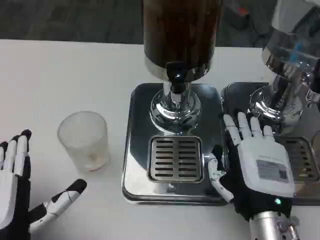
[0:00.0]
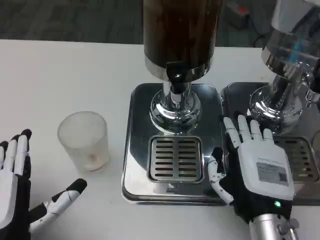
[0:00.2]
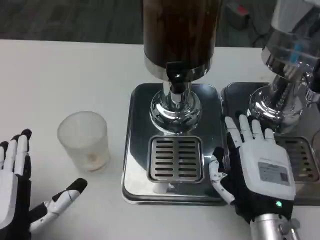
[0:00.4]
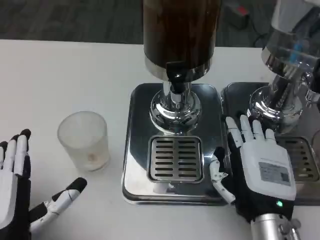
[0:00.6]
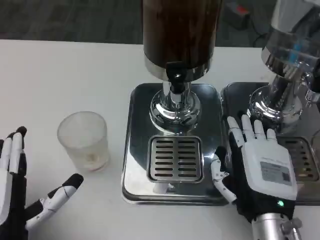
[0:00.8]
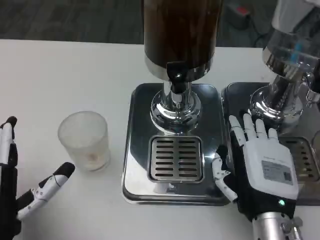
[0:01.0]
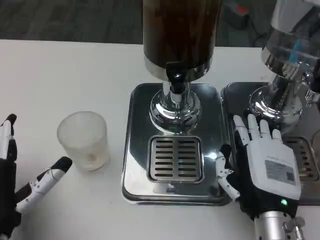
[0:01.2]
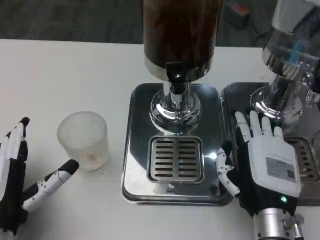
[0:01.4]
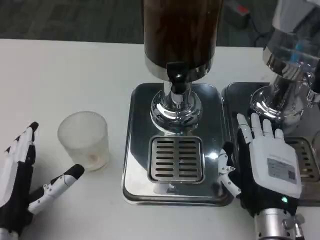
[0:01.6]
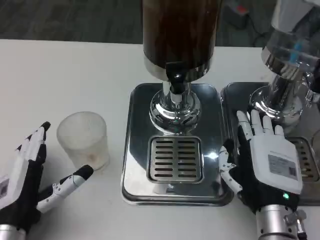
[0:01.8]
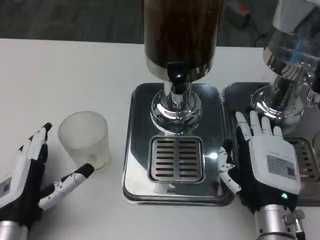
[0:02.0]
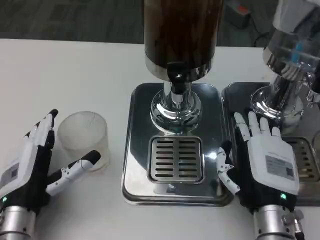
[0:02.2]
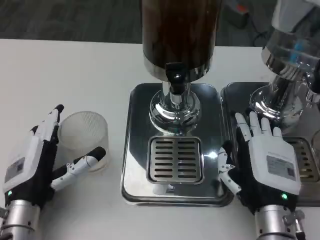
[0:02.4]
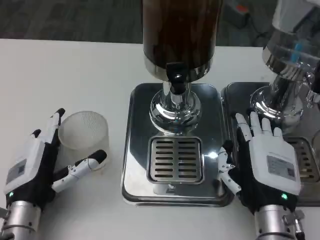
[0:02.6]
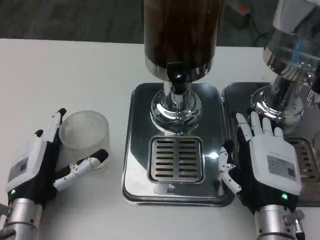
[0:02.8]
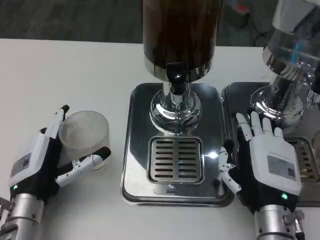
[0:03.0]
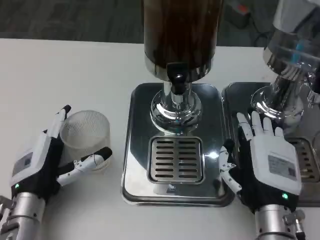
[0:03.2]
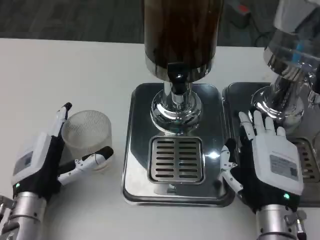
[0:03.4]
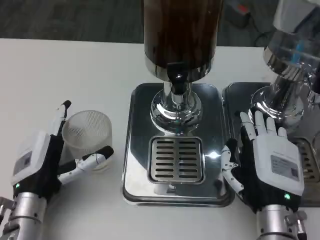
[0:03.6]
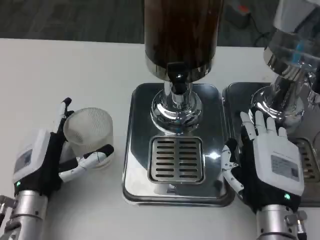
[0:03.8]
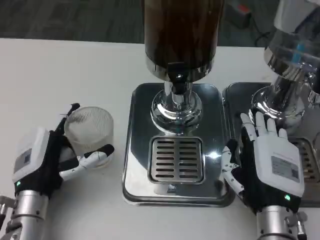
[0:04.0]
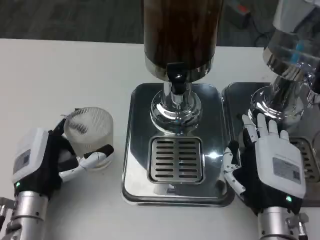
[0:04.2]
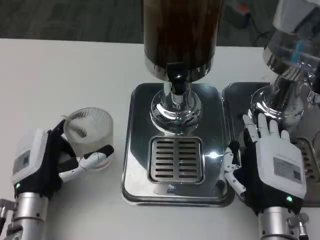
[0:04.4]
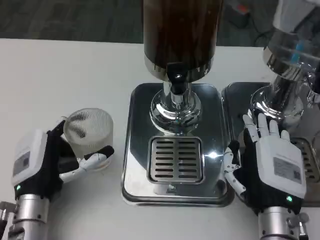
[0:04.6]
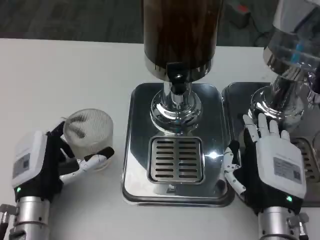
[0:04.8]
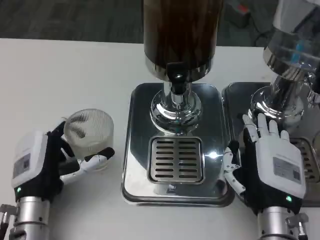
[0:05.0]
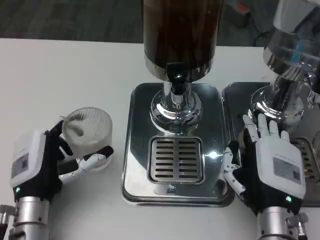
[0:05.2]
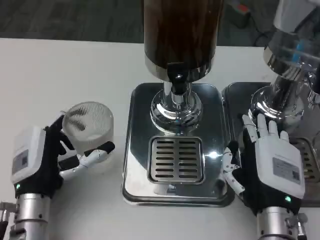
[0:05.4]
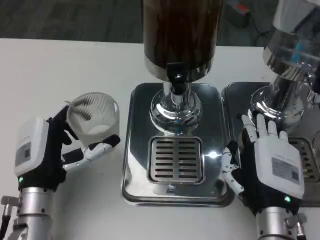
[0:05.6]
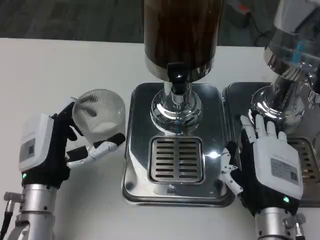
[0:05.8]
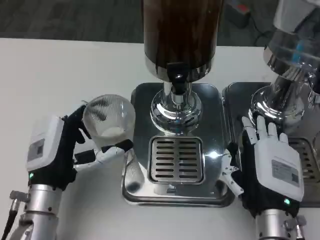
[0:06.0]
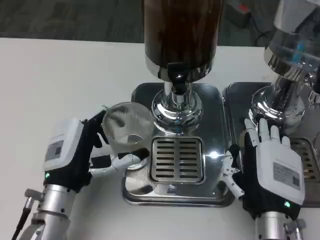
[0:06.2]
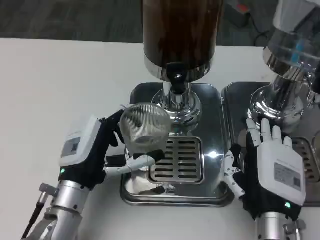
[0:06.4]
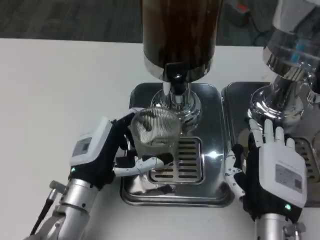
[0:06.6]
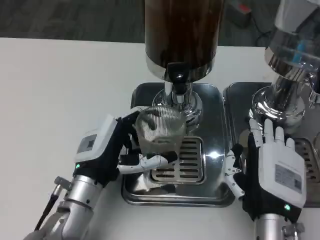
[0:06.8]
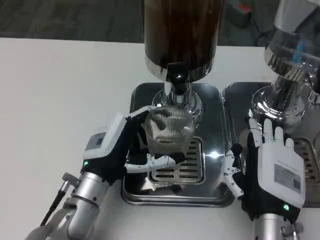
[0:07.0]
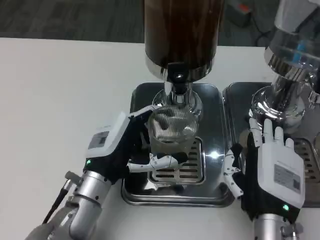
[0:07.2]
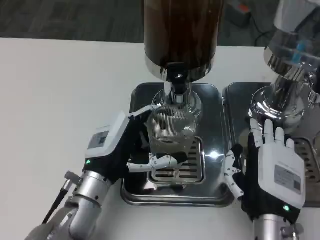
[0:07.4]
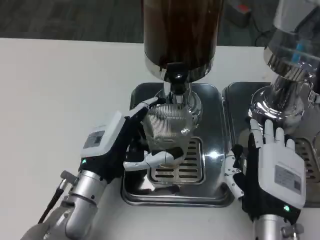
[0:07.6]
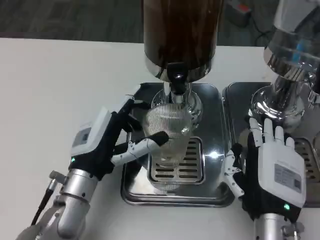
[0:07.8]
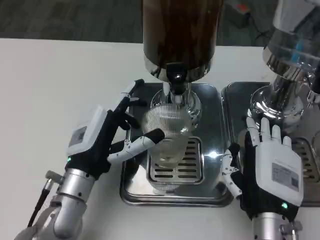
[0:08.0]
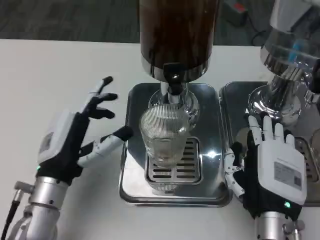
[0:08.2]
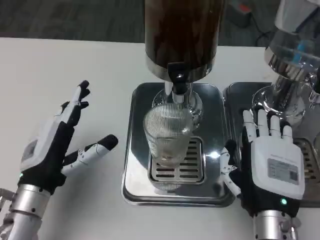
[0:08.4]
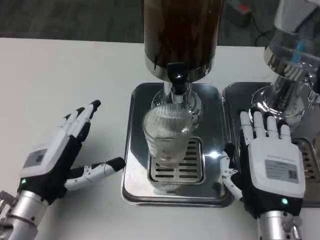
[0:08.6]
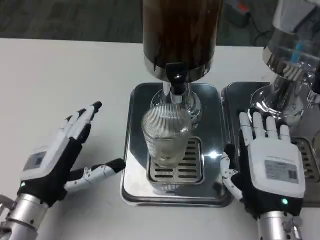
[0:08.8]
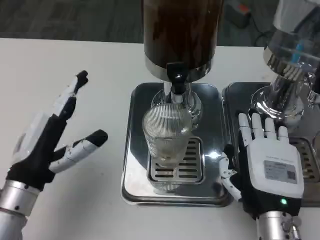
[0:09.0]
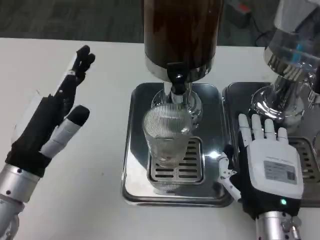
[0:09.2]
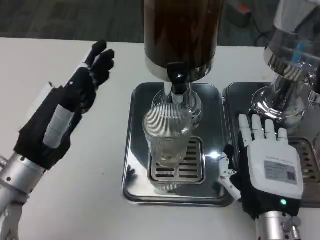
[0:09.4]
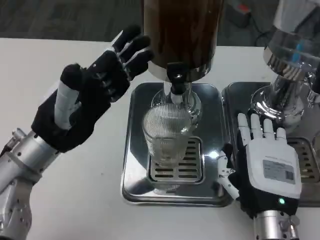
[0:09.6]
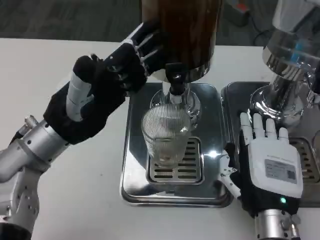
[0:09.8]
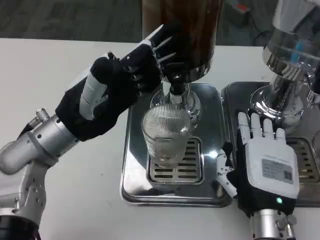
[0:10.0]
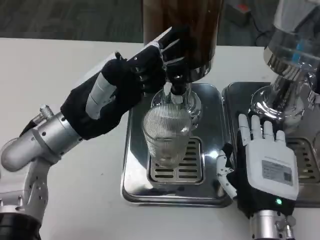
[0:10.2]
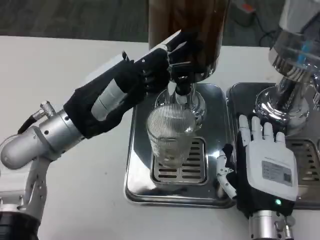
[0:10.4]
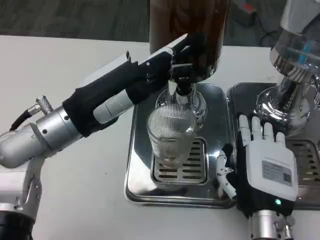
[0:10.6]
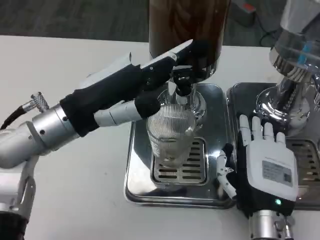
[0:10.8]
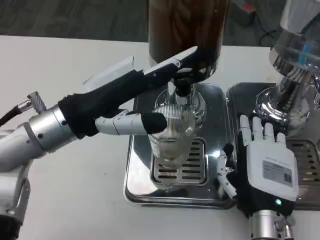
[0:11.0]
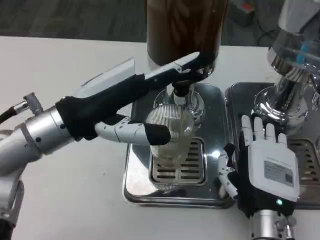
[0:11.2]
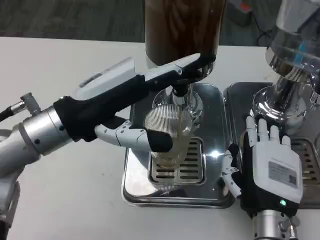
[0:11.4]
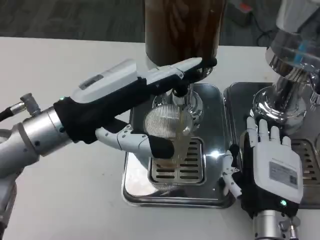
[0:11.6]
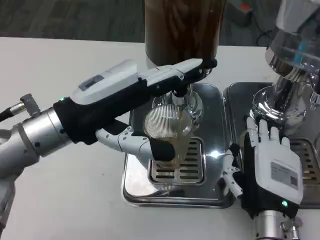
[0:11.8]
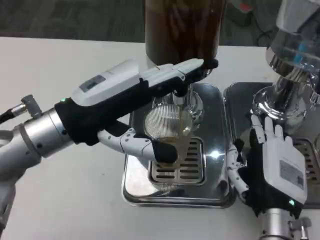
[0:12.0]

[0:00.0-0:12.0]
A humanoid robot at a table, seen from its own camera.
Task of the whole recording: Grasp the cup under the faucet to collect the drink, then remove the cup.
0.0 to 1.6 s: The left hand shifts by some 5 cm.
1.6 to 3.0 s: The left hand travels forward by approximately 5 cm.
3.0 to 4.4 s: The hands move only a little.
4.4 to 6.0 s: The hands move only a little.
6.0 to 7.6 s: The left hand moves about 5 cm.
7.6 to 9.0 s: The left hand goes roughly 10 cm to the left.
9.0 to 10.4 s: The left hand travels upward and forward by approximately 10 cm.

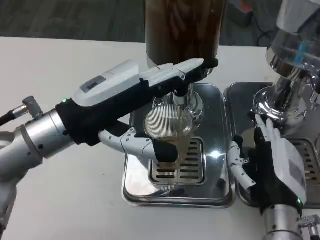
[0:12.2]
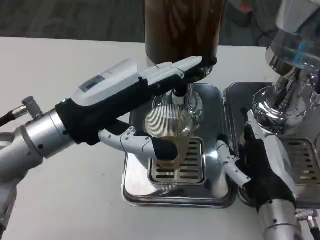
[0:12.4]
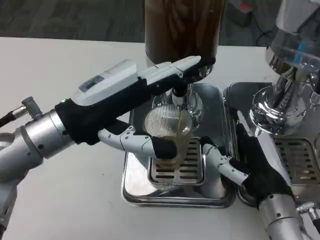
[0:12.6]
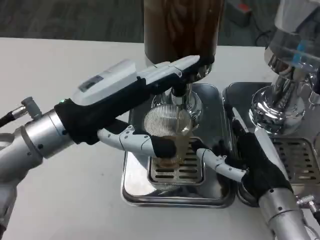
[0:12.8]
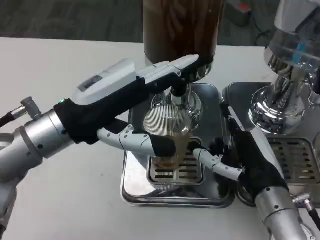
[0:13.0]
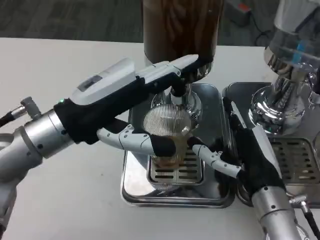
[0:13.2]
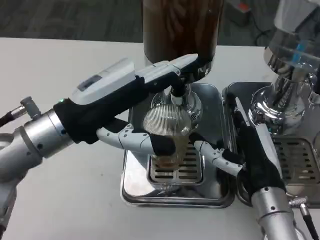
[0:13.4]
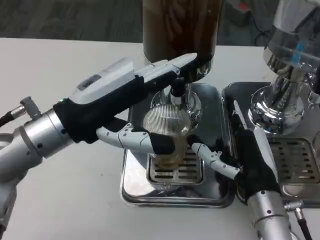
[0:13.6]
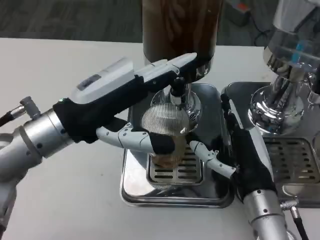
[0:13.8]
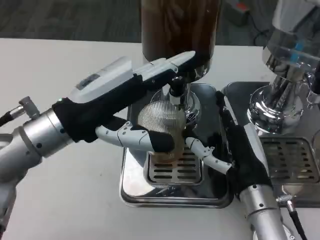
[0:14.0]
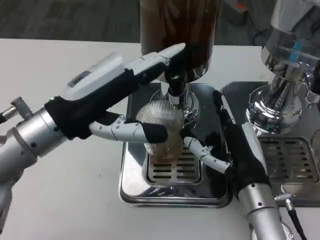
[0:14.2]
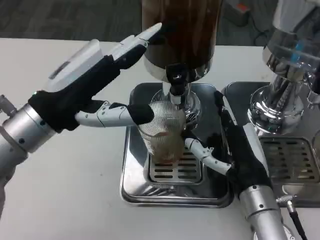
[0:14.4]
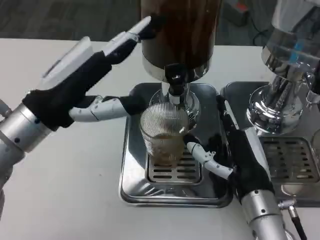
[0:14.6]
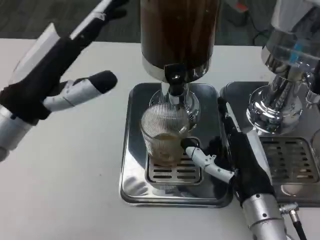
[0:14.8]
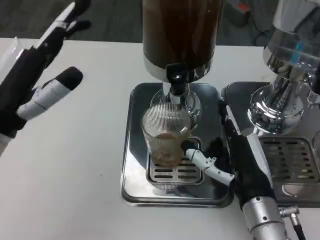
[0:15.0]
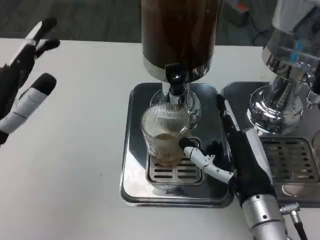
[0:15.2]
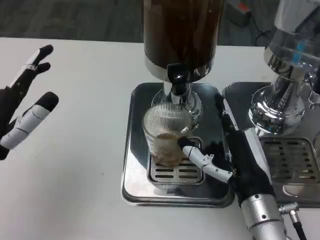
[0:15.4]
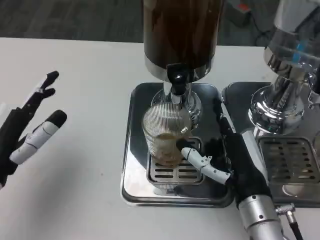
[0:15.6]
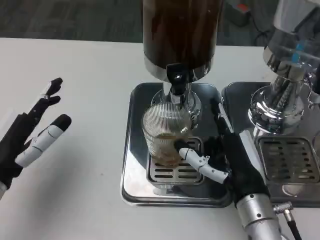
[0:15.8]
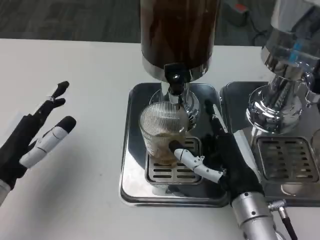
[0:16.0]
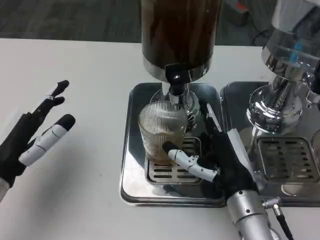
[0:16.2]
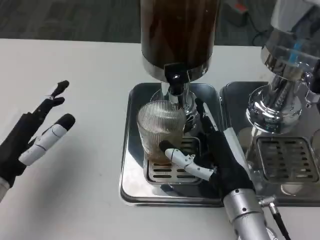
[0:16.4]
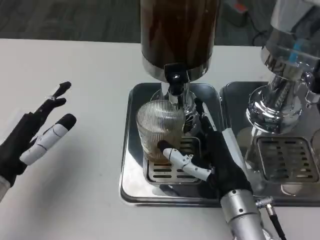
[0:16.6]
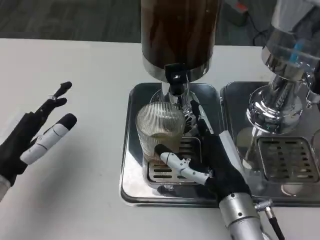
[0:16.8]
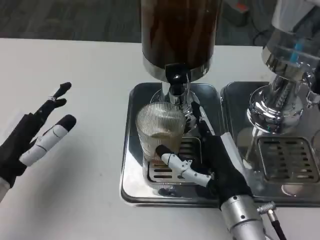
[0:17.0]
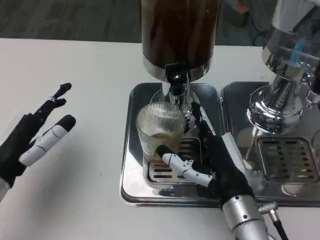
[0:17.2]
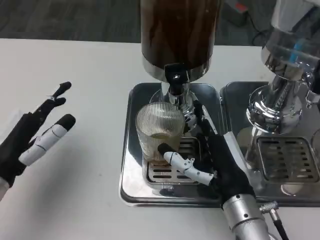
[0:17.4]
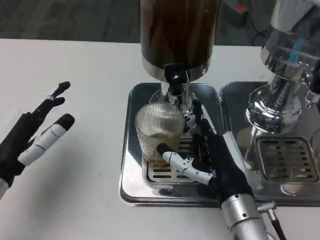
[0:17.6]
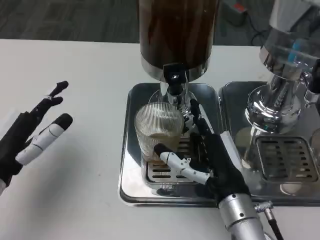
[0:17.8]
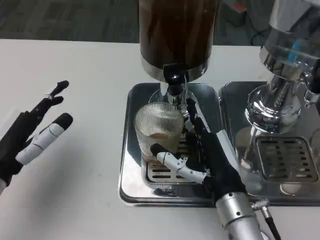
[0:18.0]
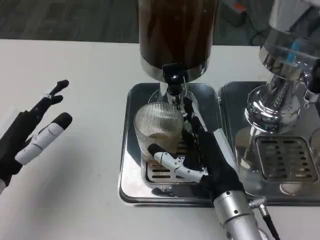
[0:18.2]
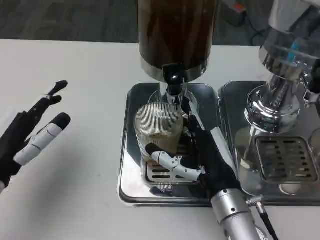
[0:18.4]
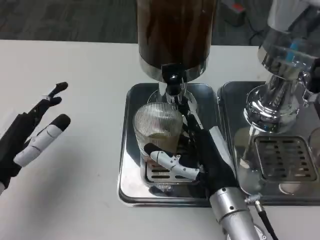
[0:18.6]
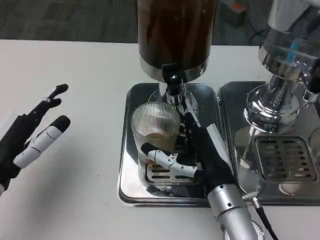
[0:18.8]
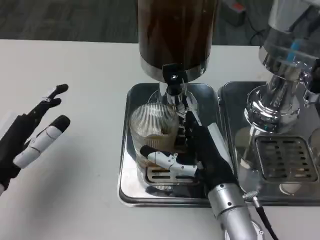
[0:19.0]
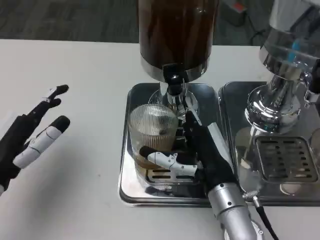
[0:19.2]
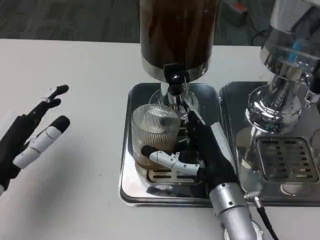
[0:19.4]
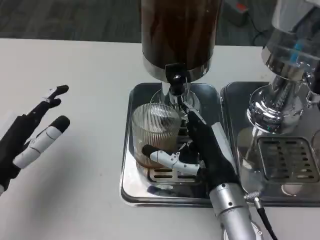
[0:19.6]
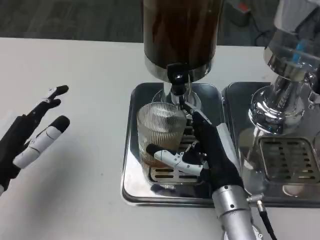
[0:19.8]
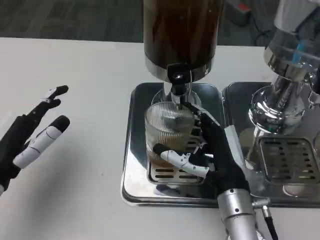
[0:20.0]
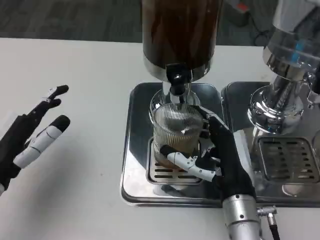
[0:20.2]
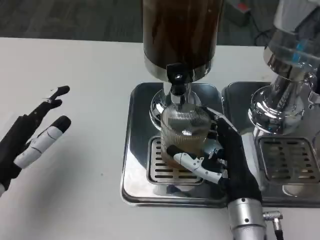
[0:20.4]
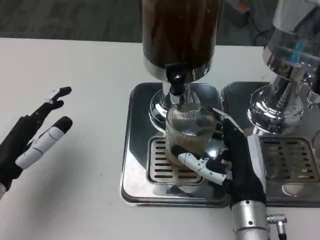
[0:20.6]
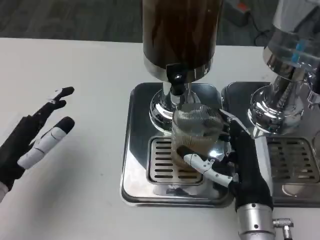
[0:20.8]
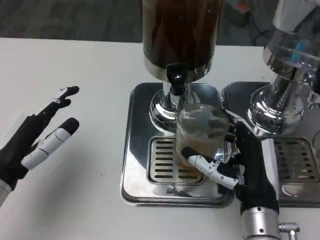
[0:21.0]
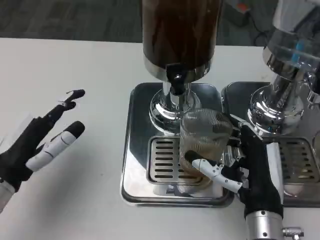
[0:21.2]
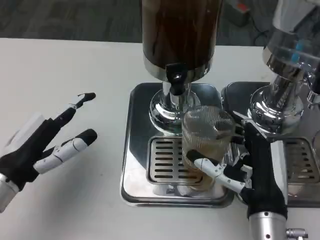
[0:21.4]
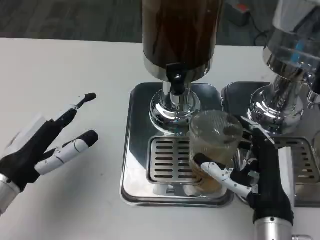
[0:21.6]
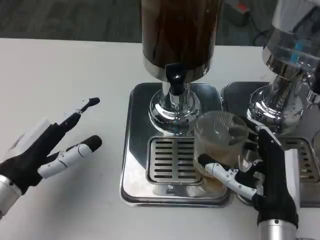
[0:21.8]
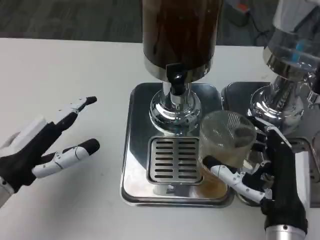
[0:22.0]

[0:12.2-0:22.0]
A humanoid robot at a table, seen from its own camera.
Task of the whole recording: Grasp the cup under the faucet to collect the drink, then remove the cup.
13.6 to 15.0 s: The left hand heads to the left, covering roughly 5 cm.
15.0 to 16.4 s: The left hand travels downward by about 5 cm.
16.4 to 19.2 s: The hands stay close to where they were, moving slightly.
20.6 to 22.0 s: The right hand shifts by about 5 cm.

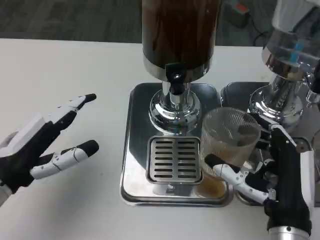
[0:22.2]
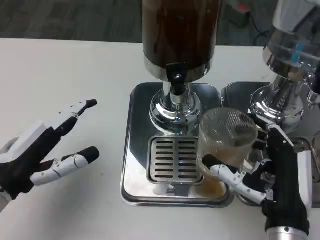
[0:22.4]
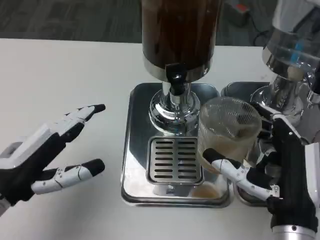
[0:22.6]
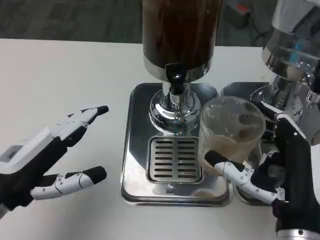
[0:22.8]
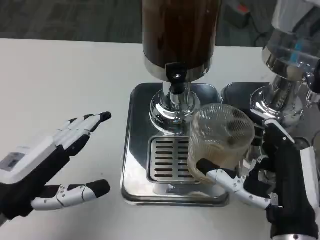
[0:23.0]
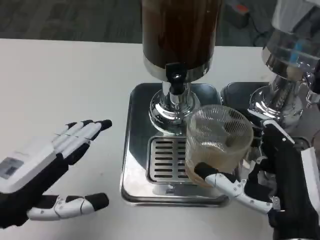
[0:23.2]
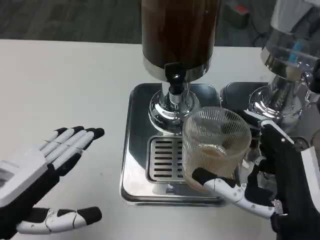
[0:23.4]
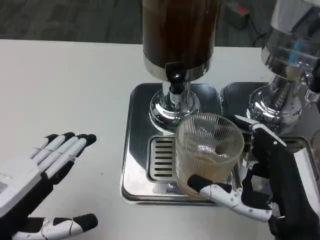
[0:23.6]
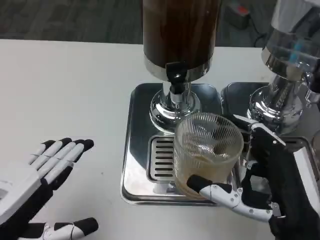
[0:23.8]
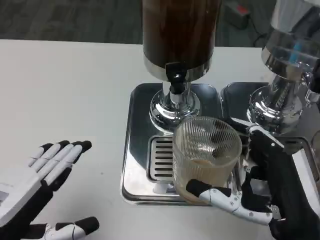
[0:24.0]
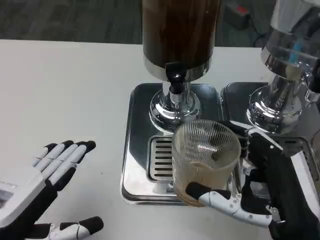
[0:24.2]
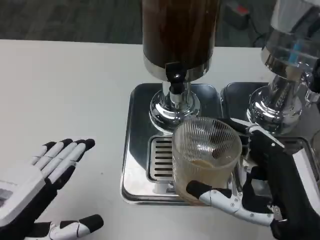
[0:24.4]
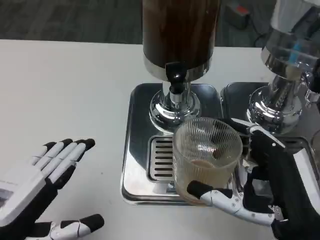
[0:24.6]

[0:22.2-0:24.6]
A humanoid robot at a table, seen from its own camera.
Task of the whole recording: Grasp the cup under the faucet to collect the drink, then remove the cup.
22.2 to 23.4 s: The right hand ends up about 5 cm from where it was. Meanwhile the left hand goes approximately 5 cm backward.
23.4 to 24.6 s: The hands make only small movements.
